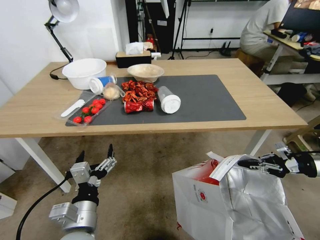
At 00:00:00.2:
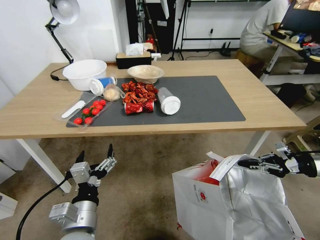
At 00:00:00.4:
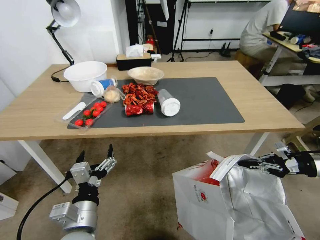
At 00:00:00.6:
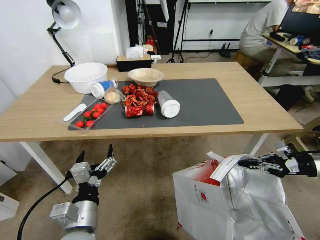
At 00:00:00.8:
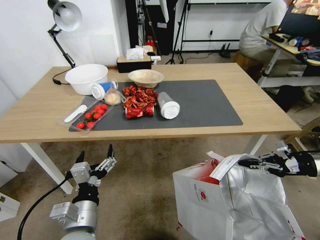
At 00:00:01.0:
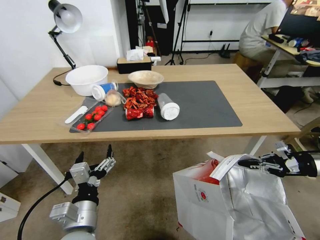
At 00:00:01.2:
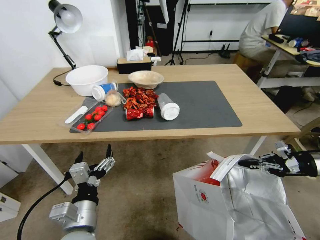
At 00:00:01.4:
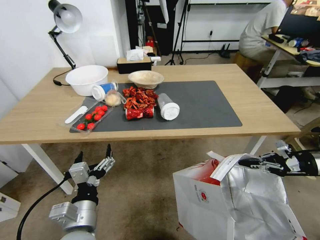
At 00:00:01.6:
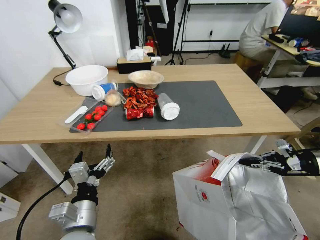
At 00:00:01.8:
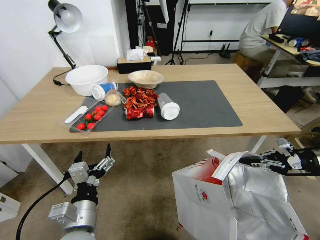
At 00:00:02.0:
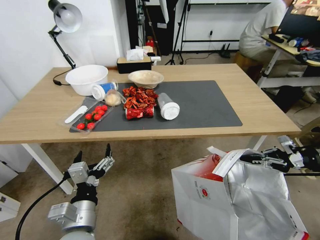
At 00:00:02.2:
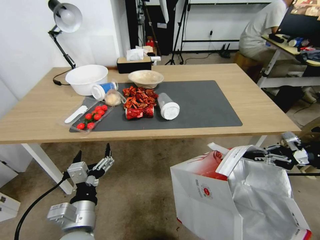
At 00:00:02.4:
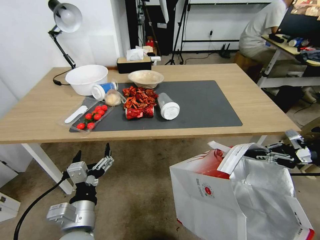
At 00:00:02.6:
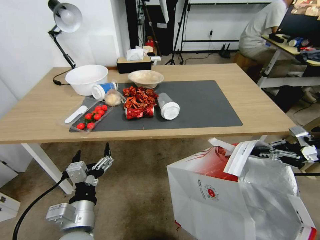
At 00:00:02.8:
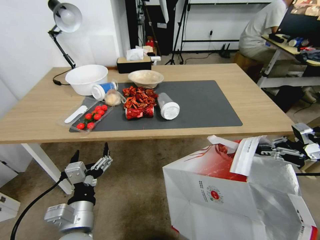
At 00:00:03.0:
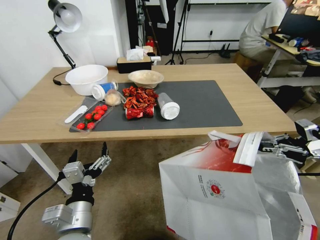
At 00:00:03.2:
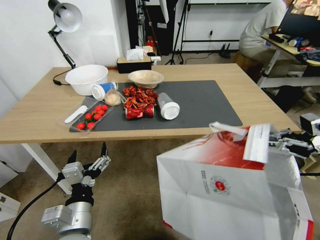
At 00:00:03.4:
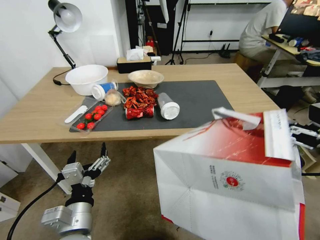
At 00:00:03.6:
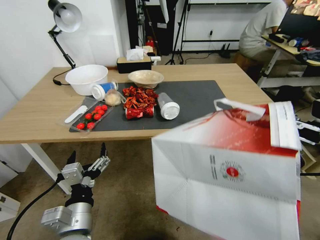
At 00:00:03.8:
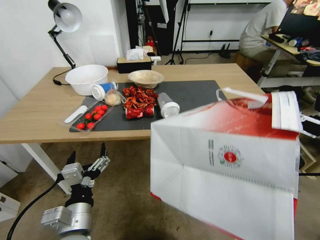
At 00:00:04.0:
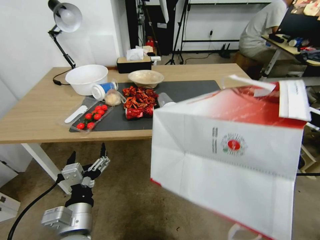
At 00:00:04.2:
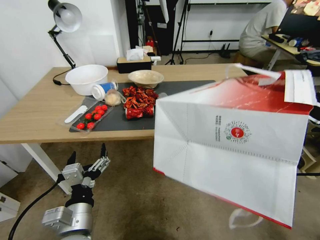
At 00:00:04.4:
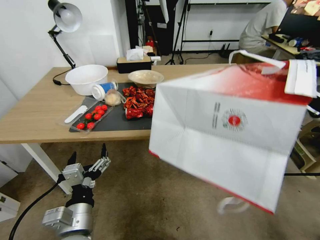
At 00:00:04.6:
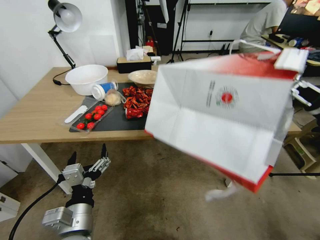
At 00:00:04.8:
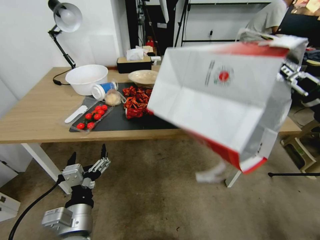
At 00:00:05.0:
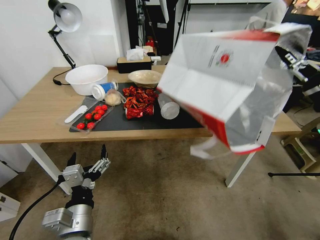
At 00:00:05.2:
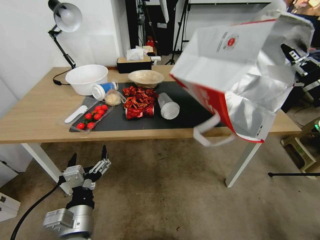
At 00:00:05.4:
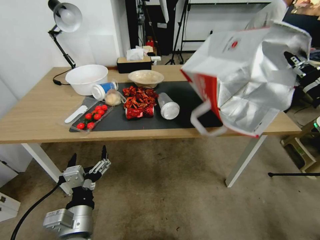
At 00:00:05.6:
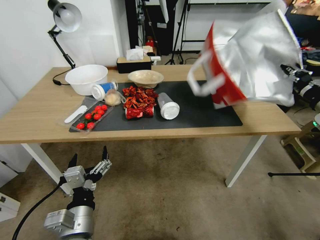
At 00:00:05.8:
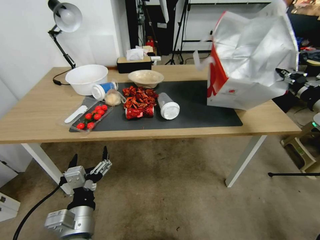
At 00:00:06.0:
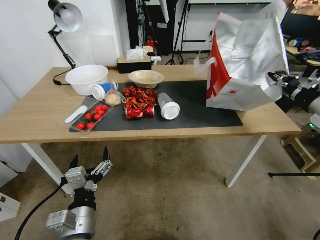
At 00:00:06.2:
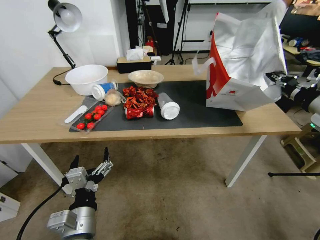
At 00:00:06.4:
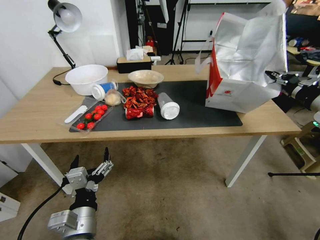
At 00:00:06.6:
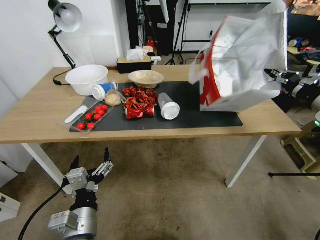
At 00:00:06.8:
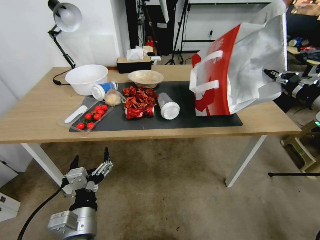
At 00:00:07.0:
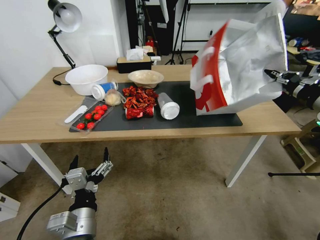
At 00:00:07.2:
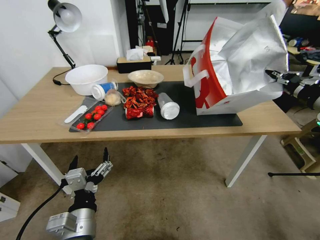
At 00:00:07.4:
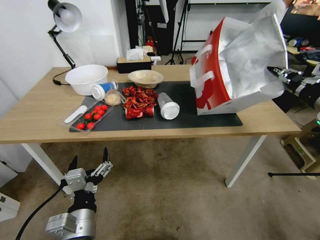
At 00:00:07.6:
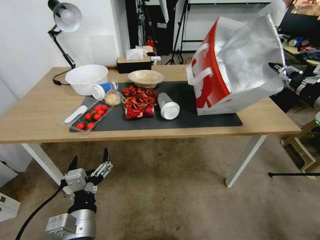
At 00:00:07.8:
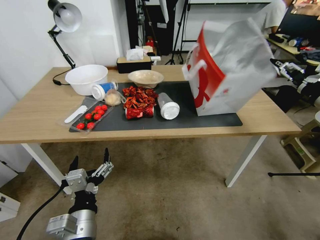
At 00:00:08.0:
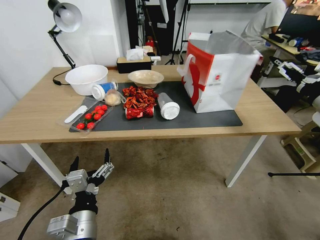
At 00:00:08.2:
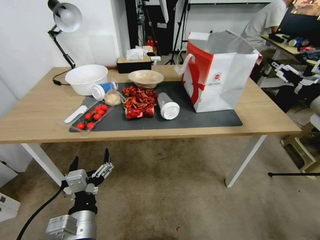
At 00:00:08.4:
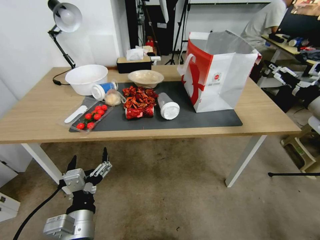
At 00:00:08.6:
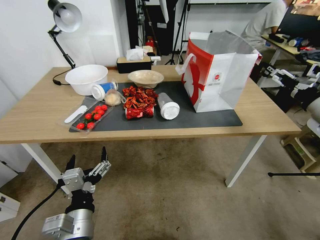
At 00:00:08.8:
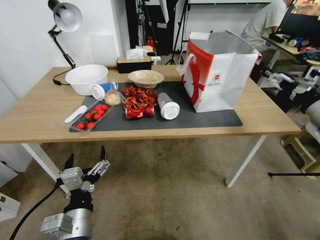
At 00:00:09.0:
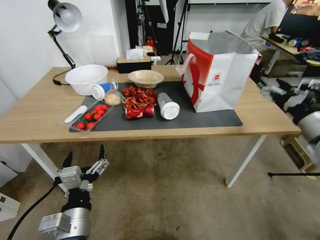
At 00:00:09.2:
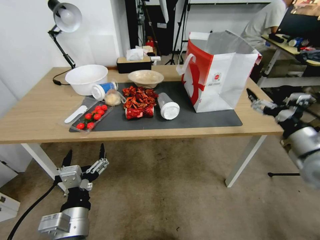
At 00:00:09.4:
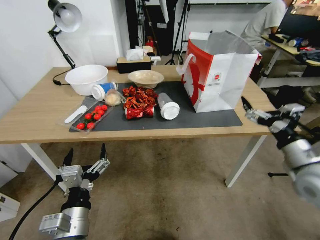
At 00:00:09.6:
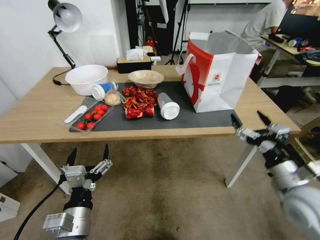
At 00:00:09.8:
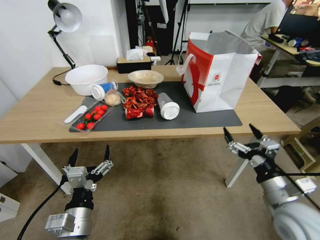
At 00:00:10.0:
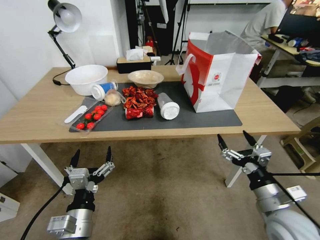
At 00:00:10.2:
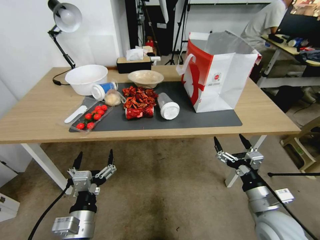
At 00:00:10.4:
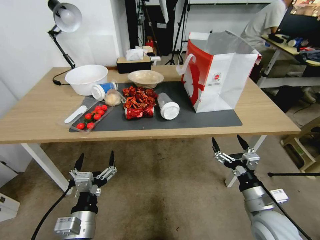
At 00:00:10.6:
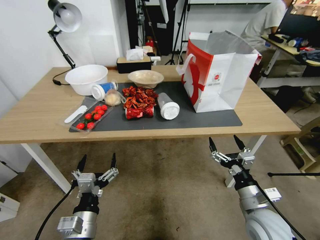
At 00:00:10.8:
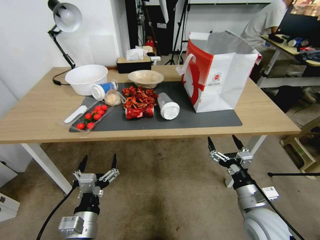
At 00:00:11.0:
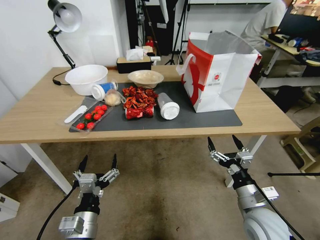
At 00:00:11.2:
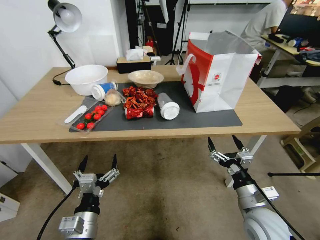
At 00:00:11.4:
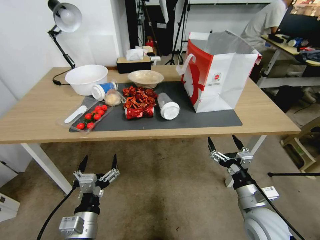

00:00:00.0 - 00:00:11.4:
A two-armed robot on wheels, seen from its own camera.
Task of the whole recording: Pick up the food delivery bag from the floor and place it on the table.
00:00:01.4 - 00:00:02.8: The right gripper is displaced upward by roughly 5 cm.
00:00:04.2 - 00:00:05.6: The right gripper ends up some 5 cm from where it was.
00:00:05.6 - 00:00:07.2: There are only small adjustments of the grippers.
00:00:07.2 - 00:00:08.6: The right gripper opens its fingers.
00:00:08.6 - 00:00:10.0: The right gripper goes some 30 cm downward, backward and to the left.
00:00:10.0 - 00:00:11.4: The right gripper shifts by approximately 5 cm.
